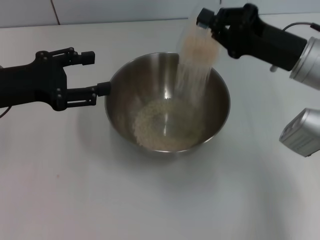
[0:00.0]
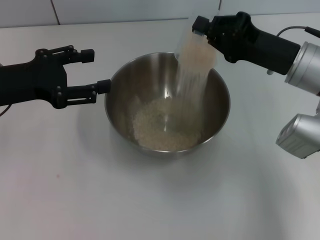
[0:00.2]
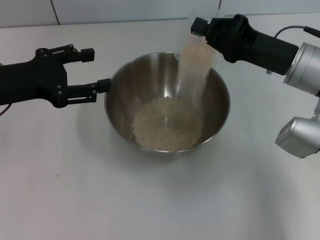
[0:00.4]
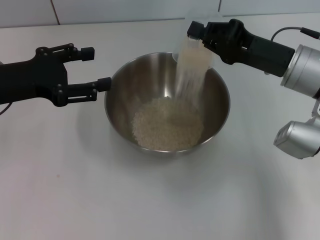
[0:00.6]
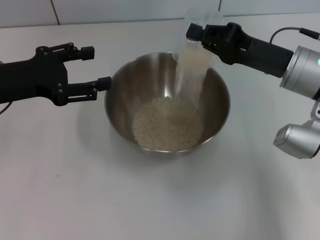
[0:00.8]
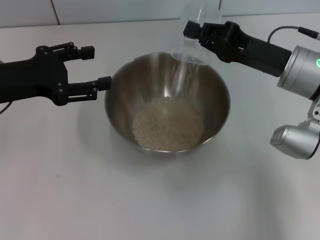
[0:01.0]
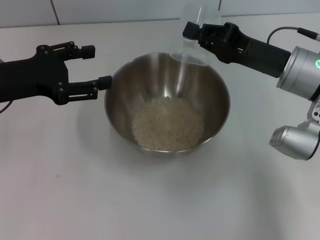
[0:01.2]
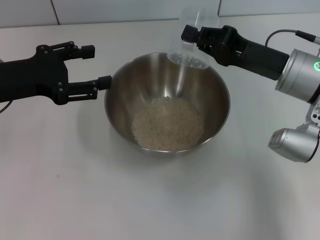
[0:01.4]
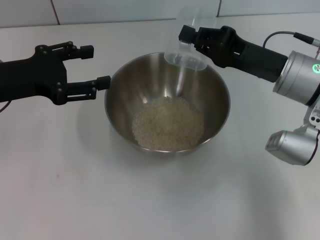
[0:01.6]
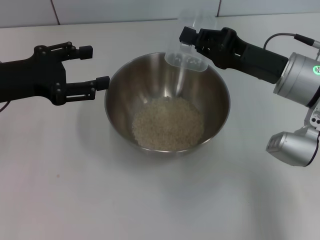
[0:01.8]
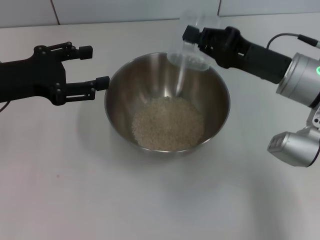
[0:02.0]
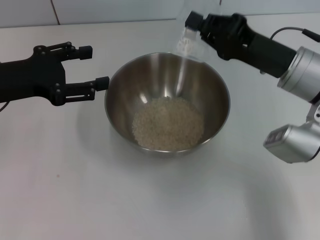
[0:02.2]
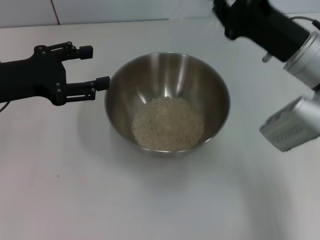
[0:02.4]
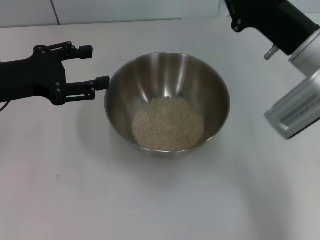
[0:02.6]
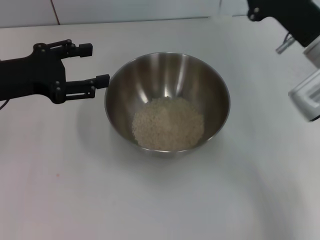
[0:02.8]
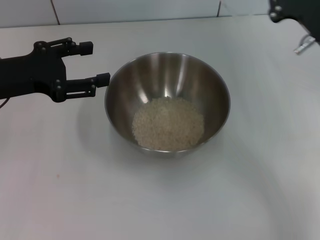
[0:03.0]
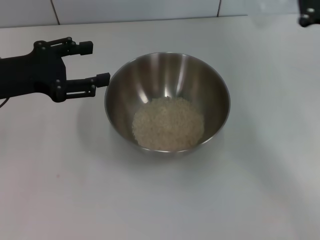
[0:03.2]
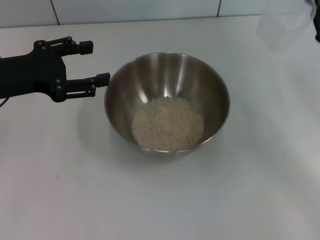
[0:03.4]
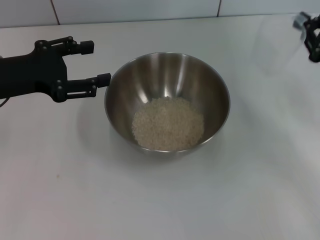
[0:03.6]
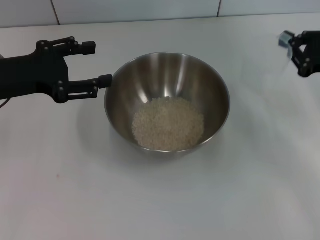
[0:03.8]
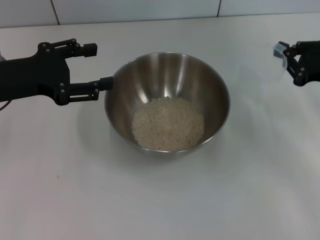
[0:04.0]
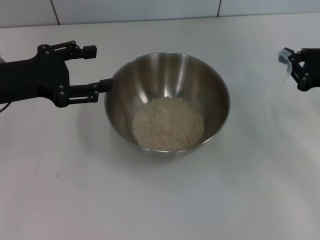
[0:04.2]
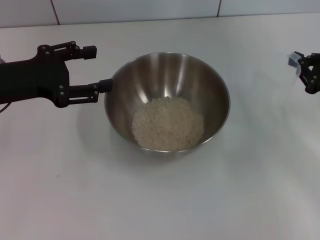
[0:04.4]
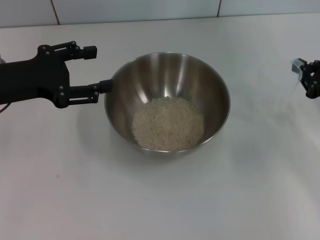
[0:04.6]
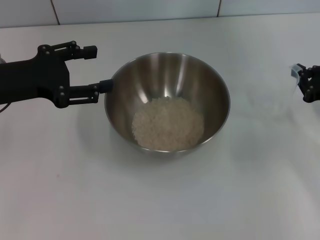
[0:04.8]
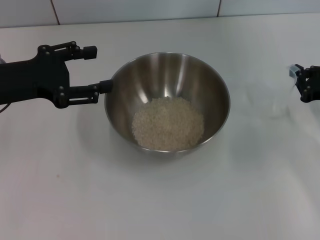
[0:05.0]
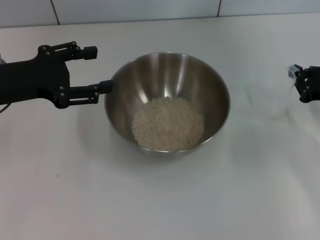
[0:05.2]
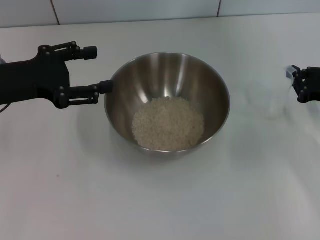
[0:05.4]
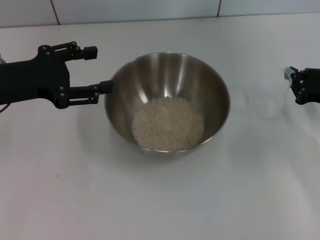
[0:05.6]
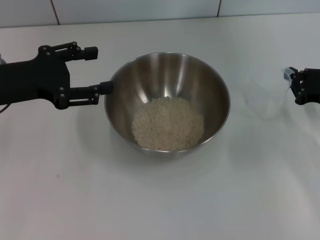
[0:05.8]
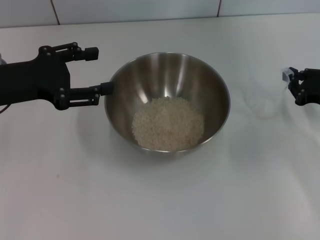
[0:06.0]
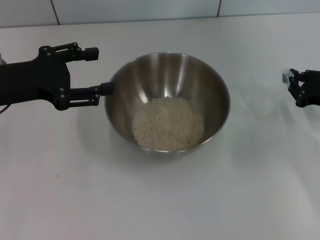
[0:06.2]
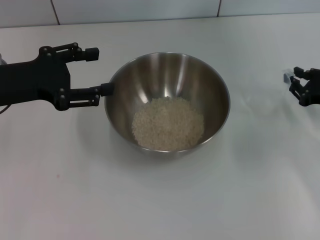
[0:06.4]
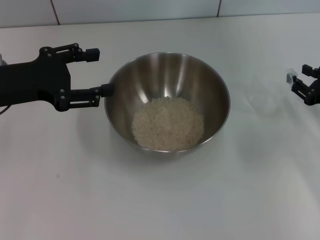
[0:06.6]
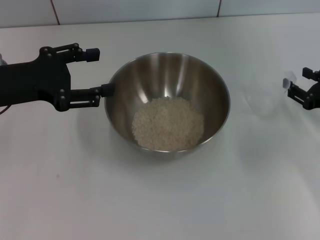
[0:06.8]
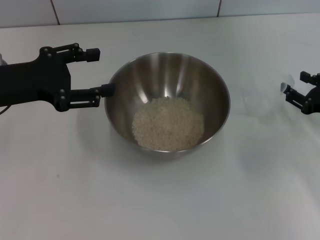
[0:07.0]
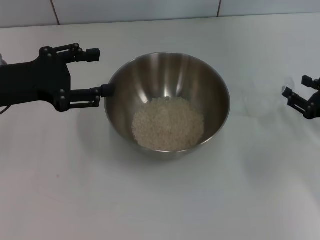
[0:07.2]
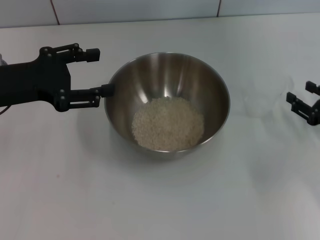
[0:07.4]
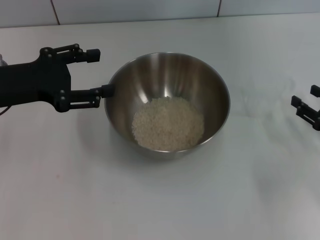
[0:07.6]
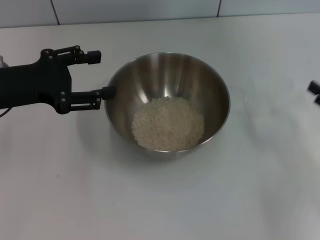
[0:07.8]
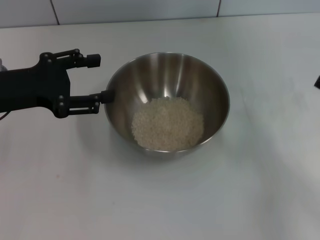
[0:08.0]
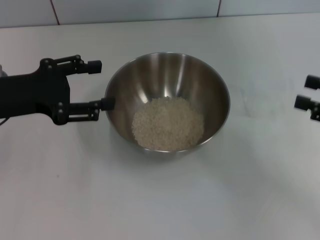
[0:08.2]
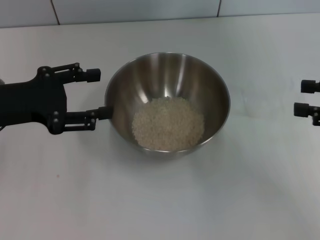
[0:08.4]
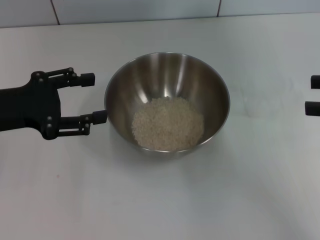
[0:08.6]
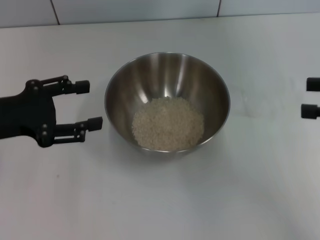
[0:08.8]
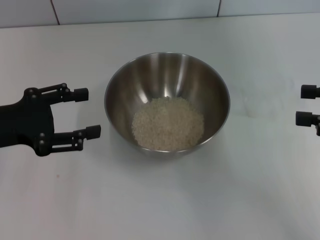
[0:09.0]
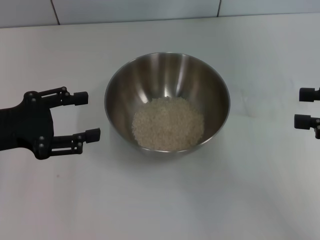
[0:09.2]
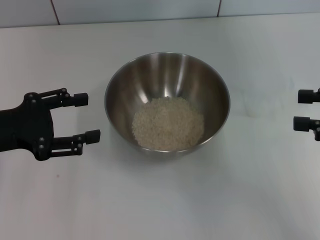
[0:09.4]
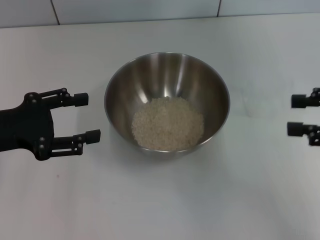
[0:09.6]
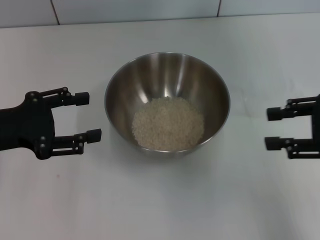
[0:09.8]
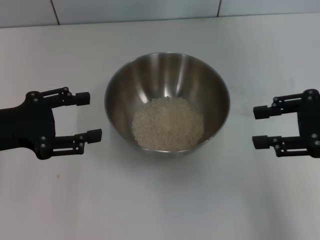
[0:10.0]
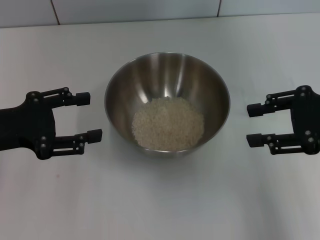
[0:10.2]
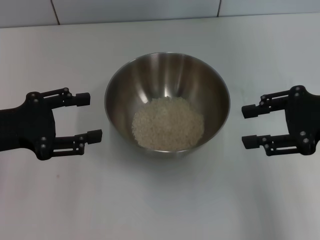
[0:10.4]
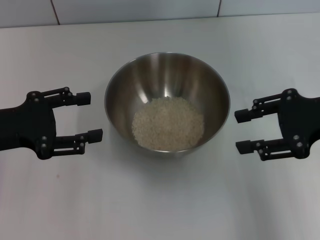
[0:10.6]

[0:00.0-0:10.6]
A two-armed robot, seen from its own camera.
Task of the whole recording: Place the bowl in the middle of the table with one hand and pour the rice from the grain cup into it with the other hand.
Step, 0:00.0 to 0:03.4: Pour the rice from the cup into the bowl with the right gripper.
Step, 0:03.8 to 0:07.6: Place the cup on the table with the right gripper.
0:00.0 to 0:01.6: The grippers make only small movements.
0:01.6 to 0:03.0: The right gripper heads to the right, covering roughly 5 cm.
0:03.0 to 0:04.6: The right gripper moves to the right and downward, approximately 10 cm.
0:04.6 to 0:06.0: The grippers move only a little.
0:06.0 to 0:07.6: The right gripper goes roughly 5 cm backward, and opens up.
0:07.6 to 0:09.0: The left gripper ends up some 5 cm from where it was, while the right gripper heads upward, covering roughly 15 cm.
0:09.0 to 0:10.6: The right gripper heads to the left, covering approximately 5 cm.
